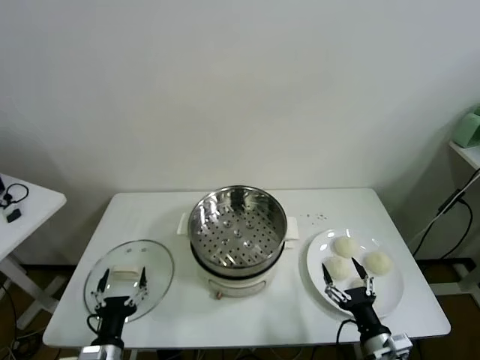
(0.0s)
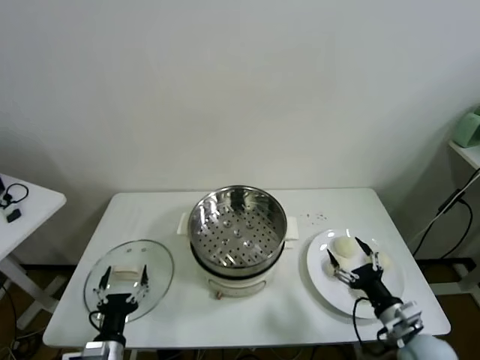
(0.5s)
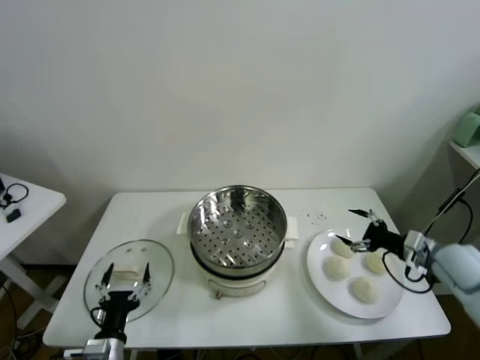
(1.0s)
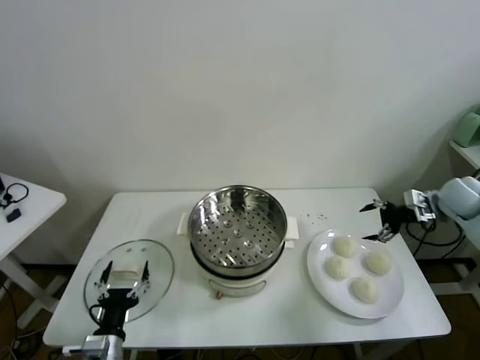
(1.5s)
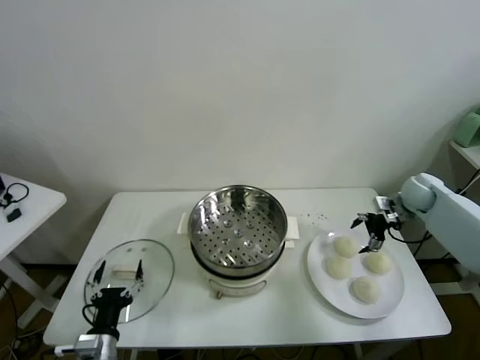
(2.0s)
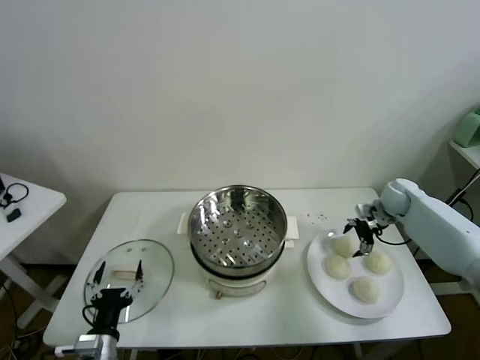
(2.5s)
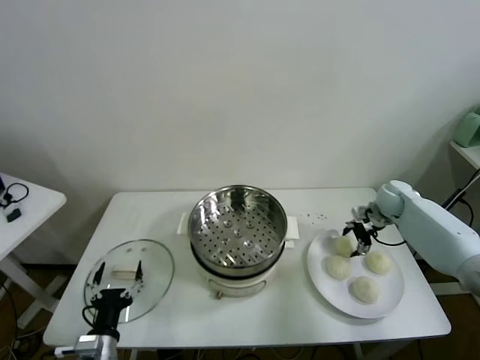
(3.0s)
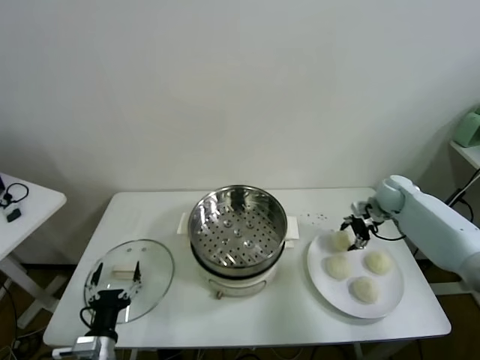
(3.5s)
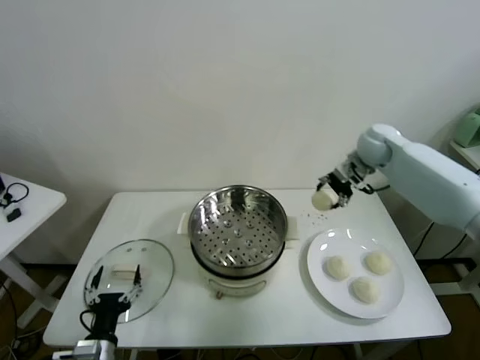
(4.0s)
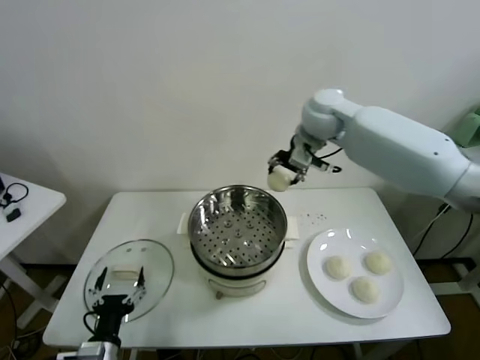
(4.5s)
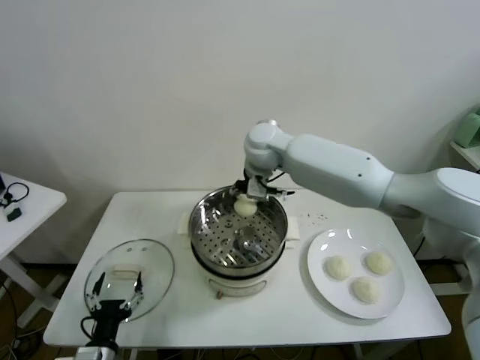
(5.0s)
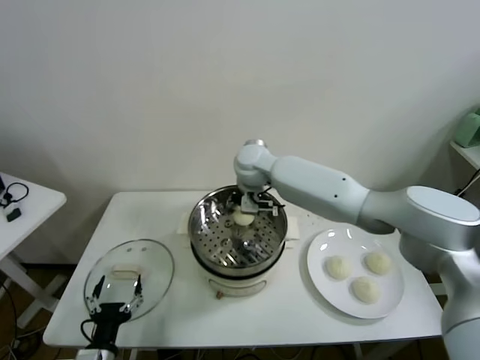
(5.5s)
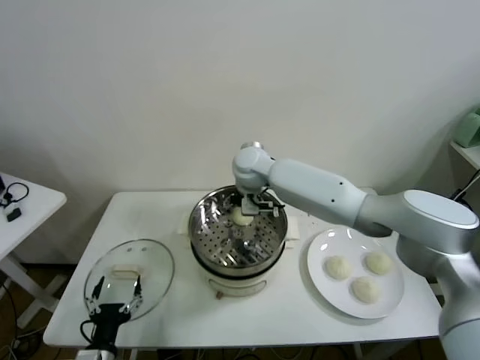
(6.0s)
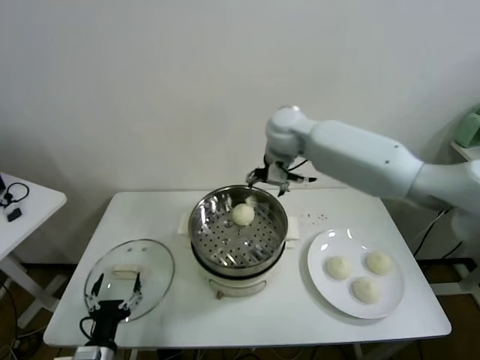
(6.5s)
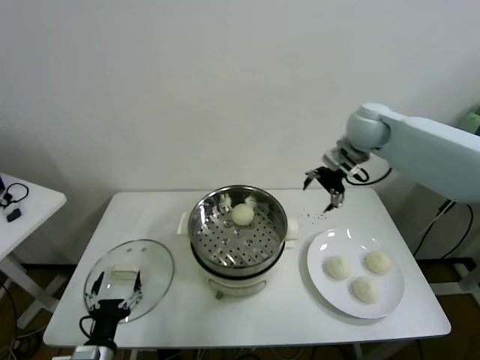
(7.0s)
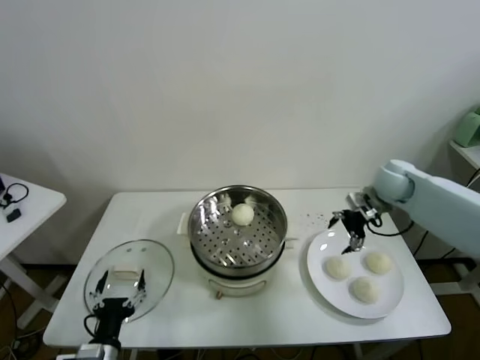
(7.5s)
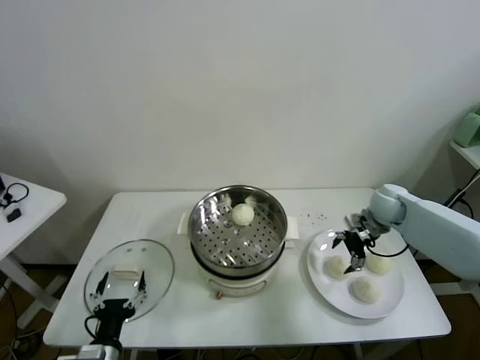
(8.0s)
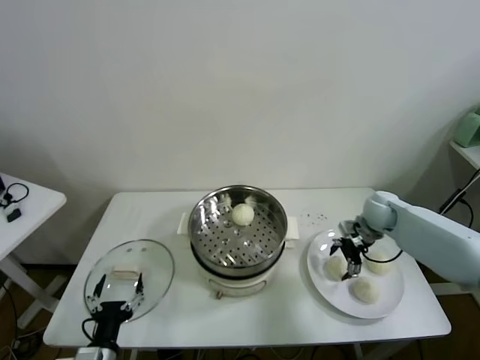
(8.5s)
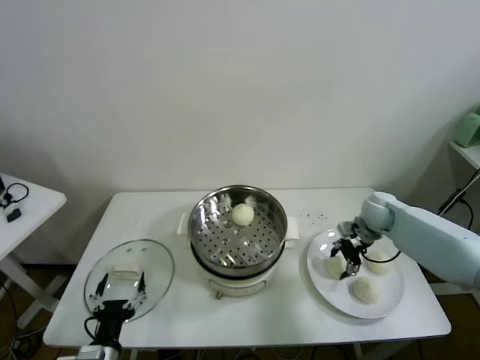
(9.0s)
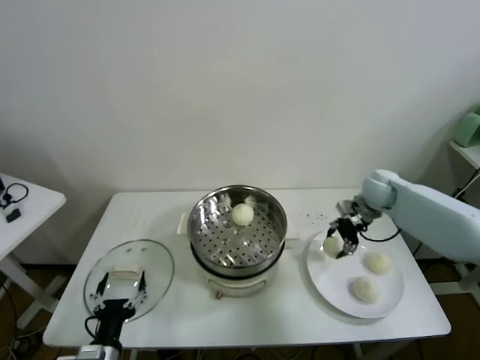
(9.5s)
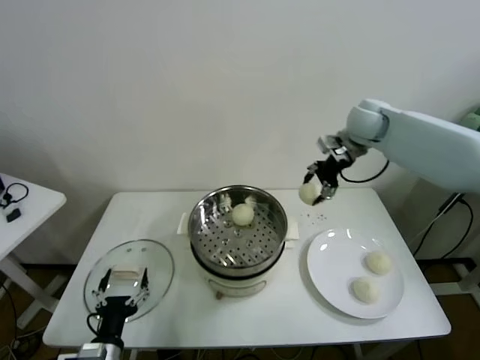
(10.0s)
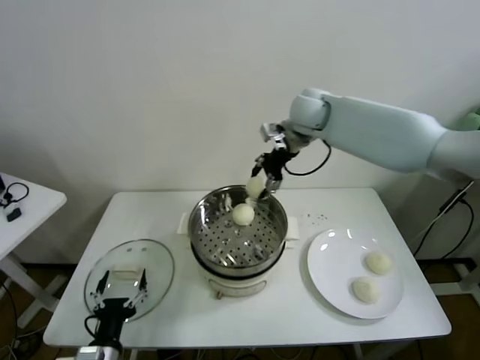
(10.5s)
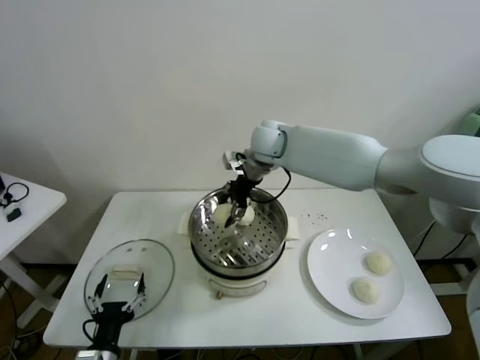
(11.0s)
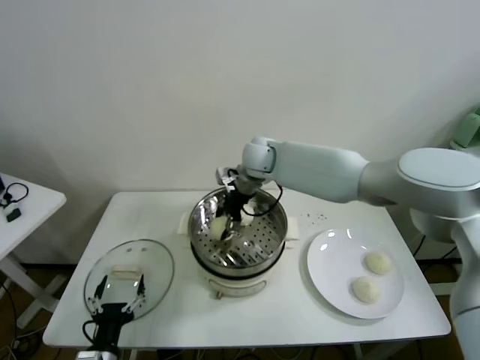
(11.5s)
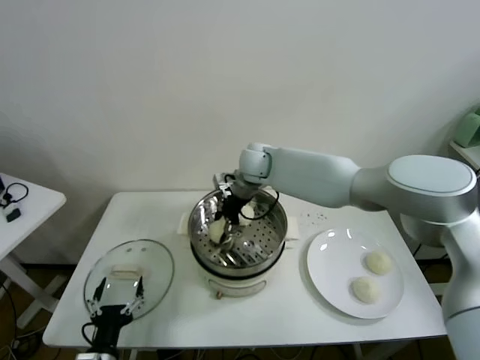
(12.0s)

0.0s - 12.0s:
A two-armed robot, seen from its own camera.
Task of the whole recording: take steamed baozi put them in steamer.
Step, 0.0s - 3.0s: Grasp the baozi in the plate with right gripper.
Step, 3.5s - 6.0s: Place the baozi on the steamer with right gripper.
Step, 6.5s - 8.5s: Grasp the baozi in the plate with right gripper.
2.0s - 4.0s: The right gripper is displaced upward and to the left by about 20 cm, and closes up.
4.0s - 6.0s: The right gripper goes about 30 cm to the left, and opens.
6.0s - 8.0s: The right gripper shifts roughly 35 cm to the right.
8.0s - 10.0s: The right gripper moves upward and to the left, some 25 cm, and closes its fingers.
10.0s - 12.0s: The right gripper shifts about 25 cm to the left and downward.

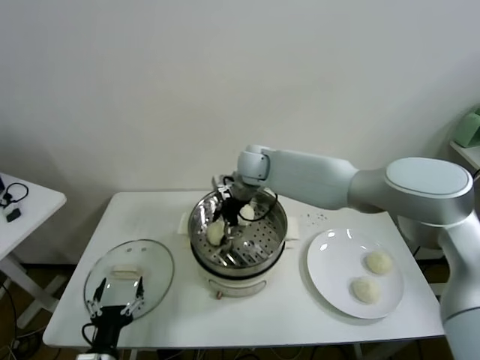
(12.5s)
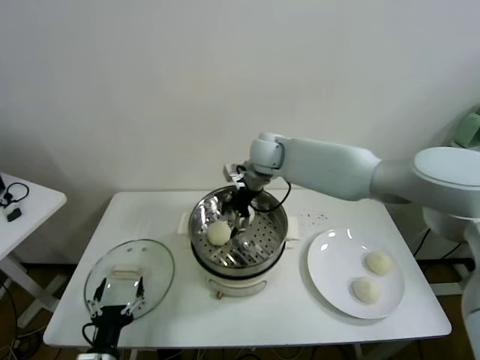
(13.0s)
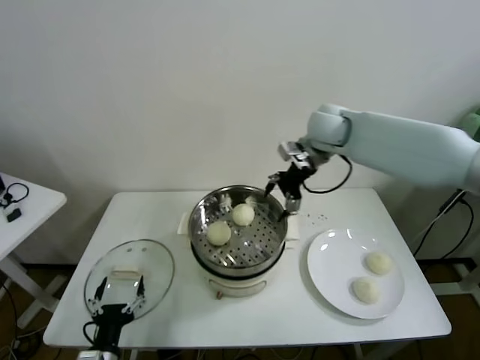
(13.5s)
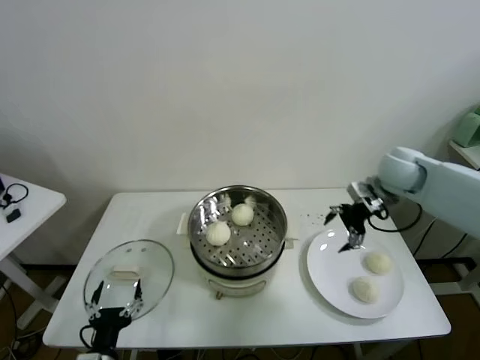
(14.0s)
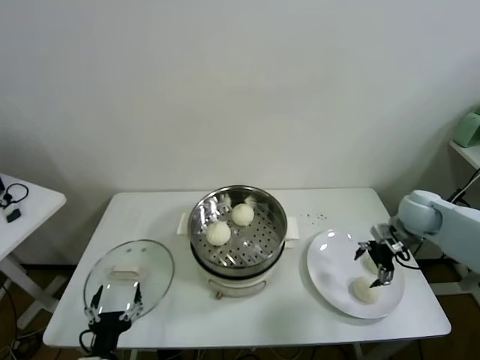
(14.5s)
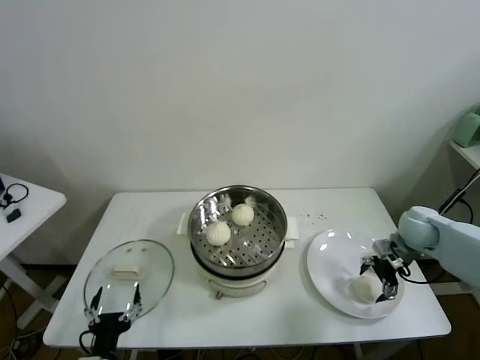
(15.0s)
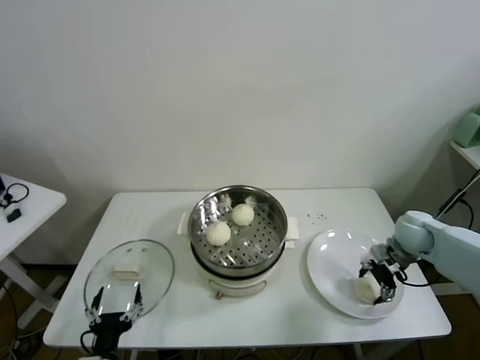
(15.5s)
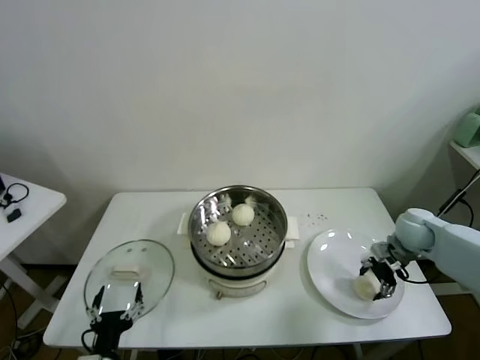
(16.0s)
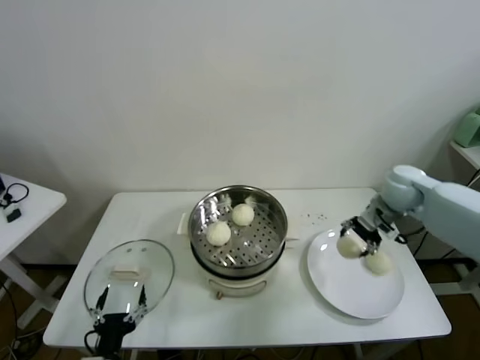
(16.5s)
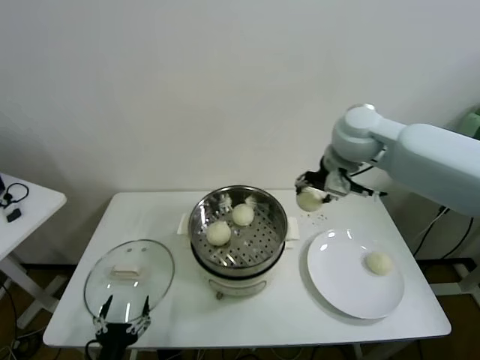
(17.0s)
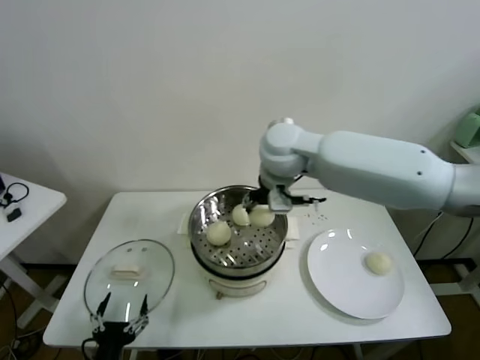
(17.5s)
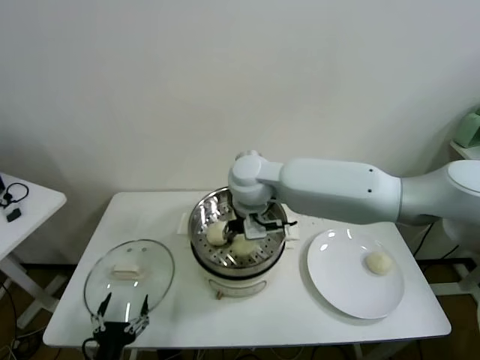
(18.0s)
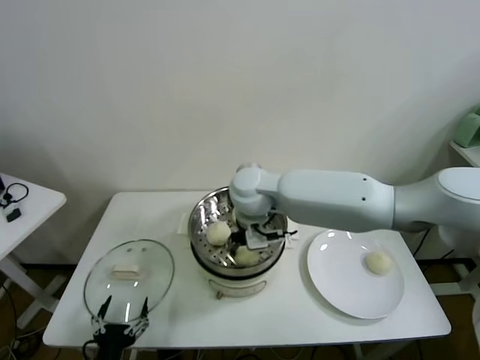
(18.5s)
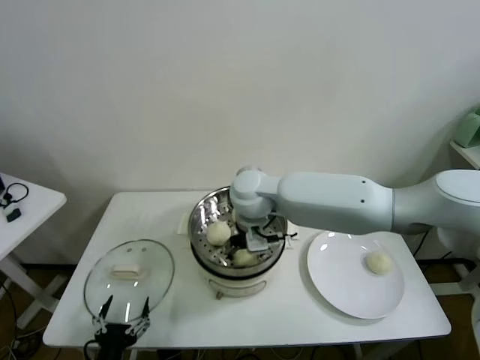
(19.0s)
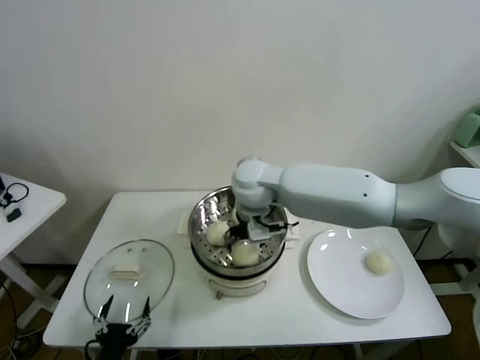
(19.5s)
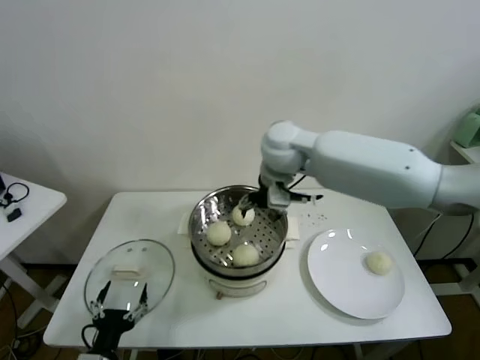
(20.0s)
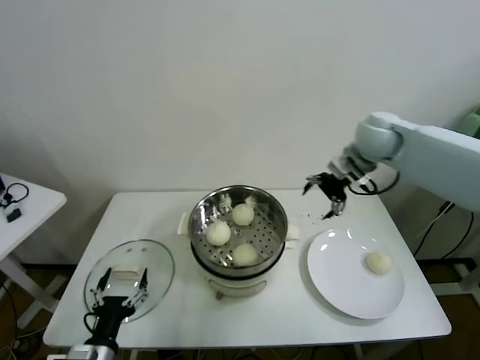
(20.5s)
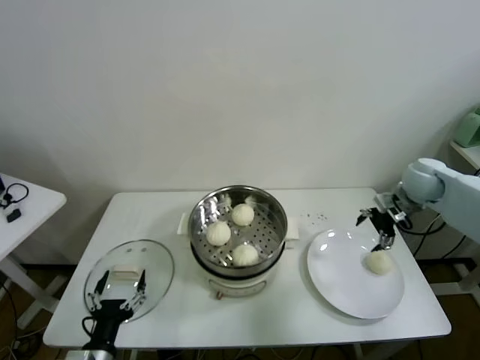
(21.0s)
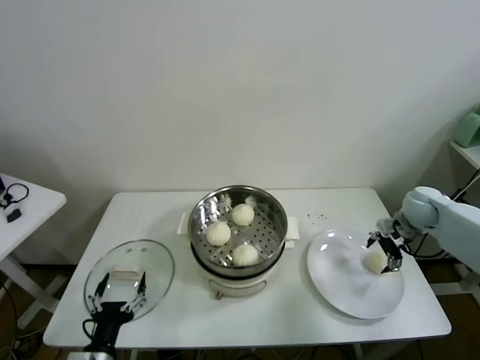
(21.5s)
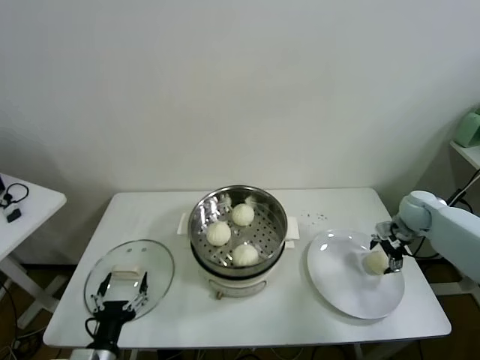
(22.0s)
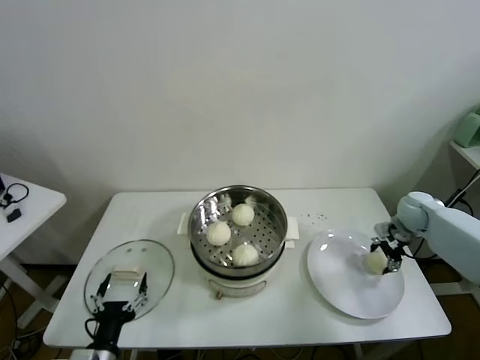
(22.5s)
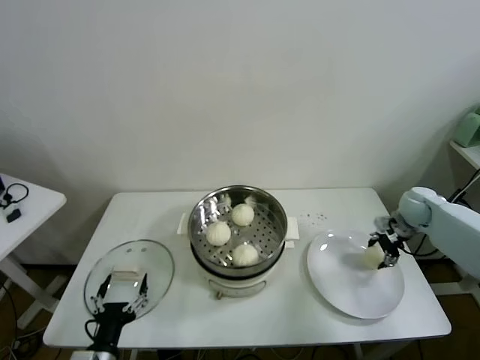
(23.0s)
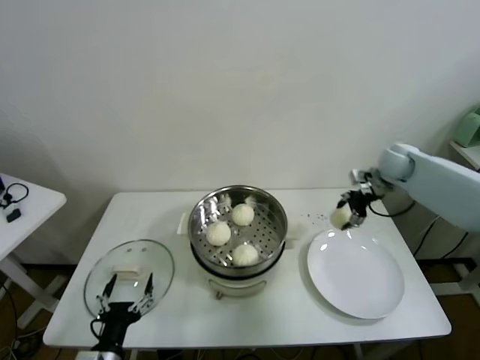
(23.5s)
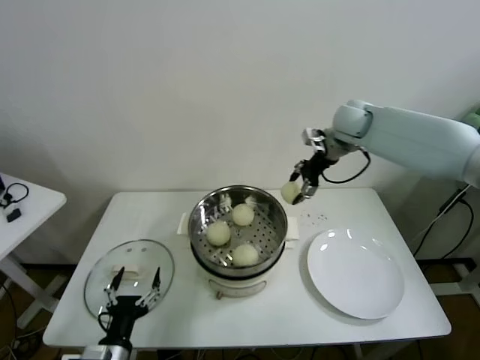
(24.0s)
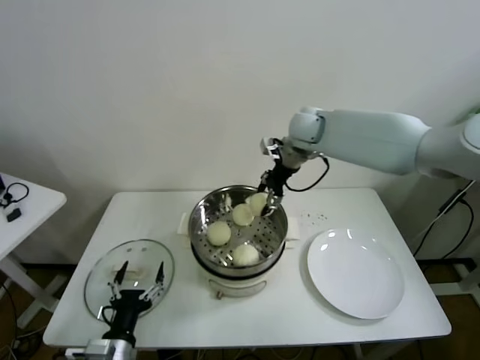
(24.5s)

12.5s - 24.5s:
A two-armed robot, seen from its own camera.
Task of the whole recording: take steamed baozi put them in steamer.
Step, 13.0s - 15.5s: Grasp the baozi in the plate with right gripper.
Step, 16.0s - 19.5s: Place the baozi on the steamer with right gripper.
Step, 20.0s - 22.5s: Grasp the baozi in the plate with right gripper.
12.5s - 14.5s: The right gripper moves to the right, about 40 cm.
14.5s - 16.5s: The right gripper moves upward and to the left, some 10 cm, and closes up.
16.5s - 18.5s: The right gripper heads to the left, covering approximately 35 cm.
18.5s - 20.5s: The right gripper moves to the right, approximately 25 cm, and opens its fingers.
20.5s - 22.5s: The right gripper shifts about 30 cm downward and to the right, and closes up.
22.5s - 24.5s: The right gripper goes approximately 35 cm to the left and upward.

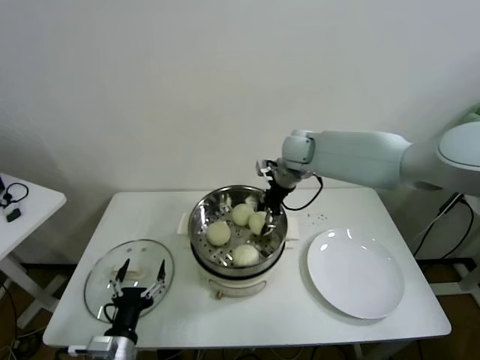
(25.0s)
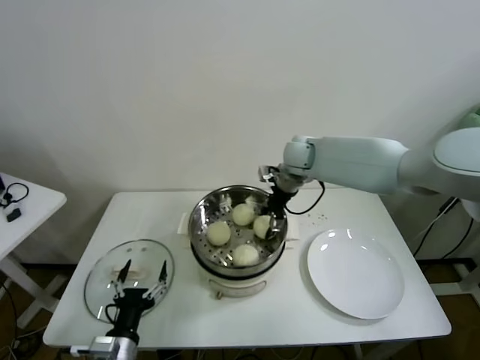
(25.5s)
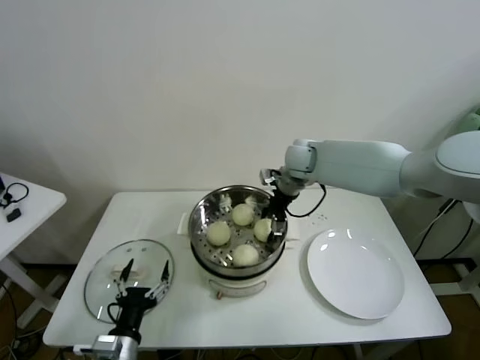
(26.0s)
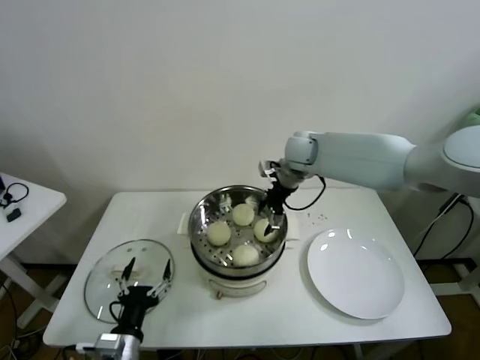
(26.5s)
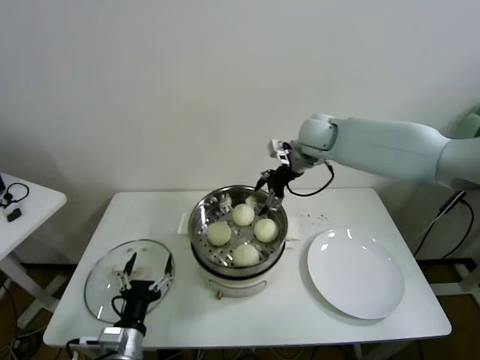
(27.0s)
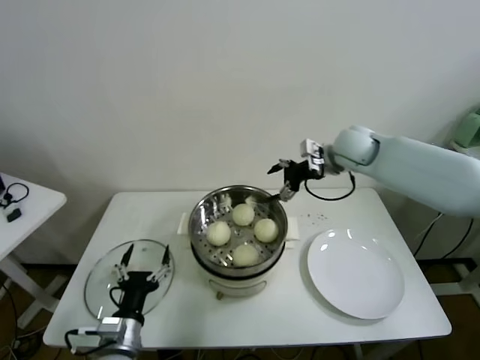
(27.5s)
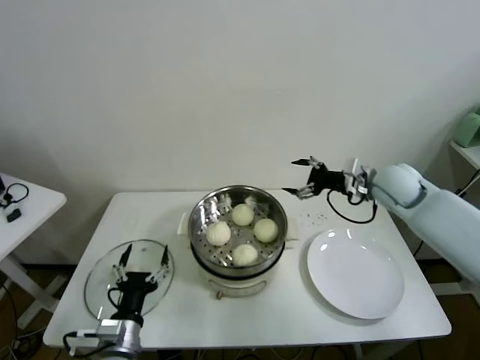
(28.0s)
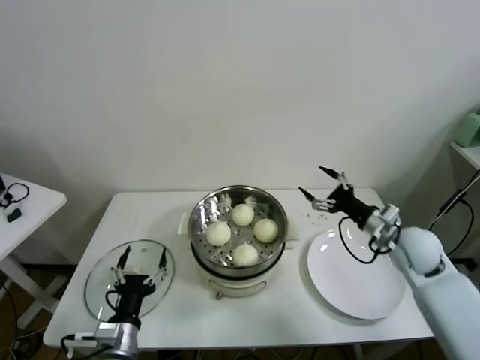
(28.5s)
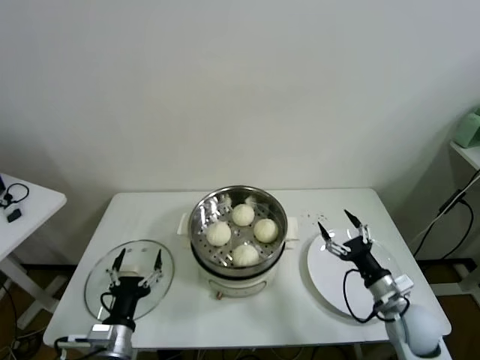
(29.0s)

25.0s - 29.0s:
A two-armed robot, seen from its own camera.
Task of the whole recording: take steamed baozi put them in steamer.
25.0s - 27.0s: The right gripper shifts by approximately 5 cm, and opens up.
27.0s - 29.0s: The right gripper moves backward, downward and to the right, roughly 40 cm.
